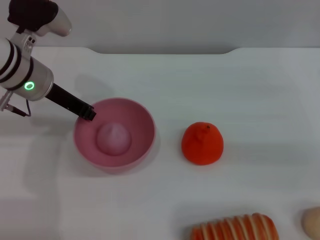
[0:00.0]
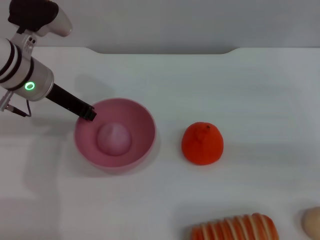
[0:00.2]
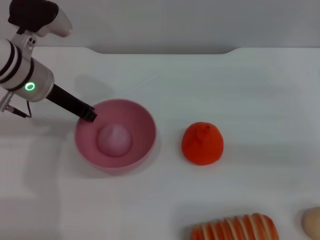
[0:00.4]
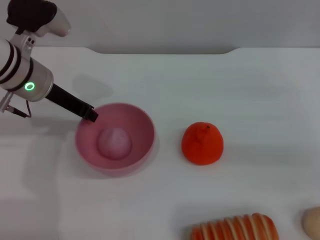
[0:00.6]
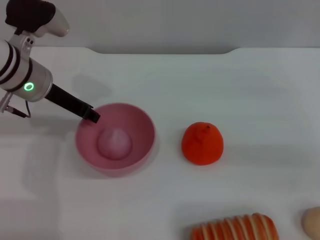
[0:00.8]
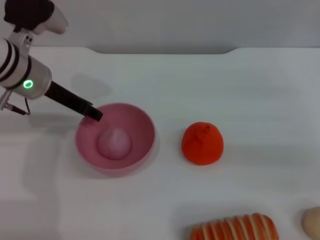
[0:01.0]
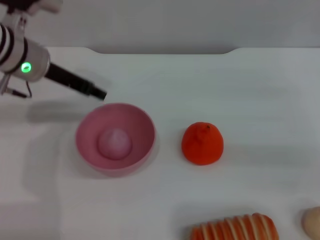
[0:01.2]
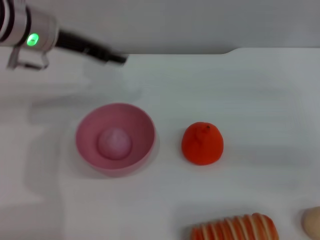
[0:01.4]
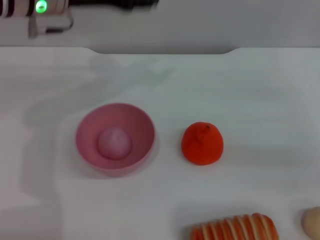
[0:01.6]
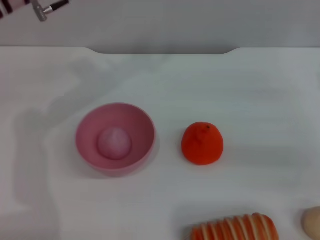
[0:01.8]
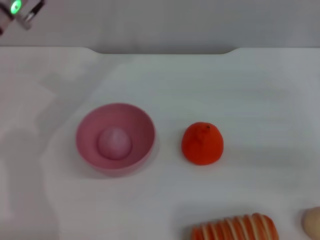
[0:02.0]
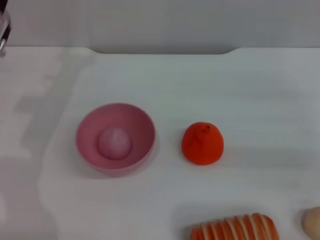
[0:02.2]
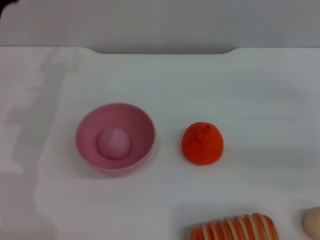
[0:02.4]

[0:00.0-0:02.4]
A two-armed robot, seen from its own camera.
Task of the whole recording: put the peach into the pink bowl and pour it out repeatedly.
0:00.0 to 0:01.2: The left gripper opens its fingers.
0:01.2 to 0:02.4: The left gripper is displaced to the left and downward by roughly 10 cm.
